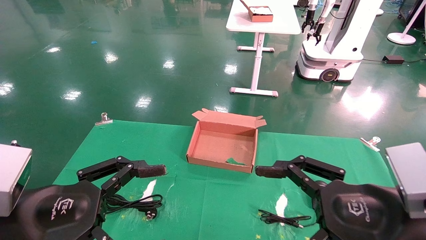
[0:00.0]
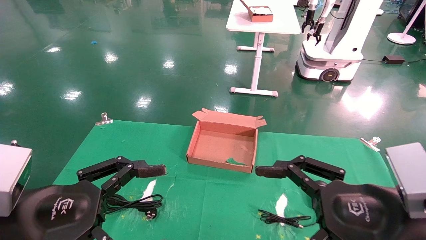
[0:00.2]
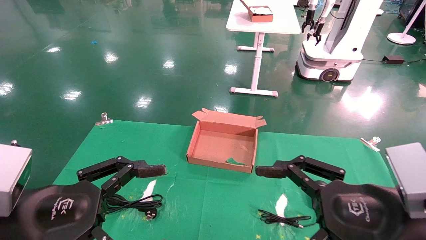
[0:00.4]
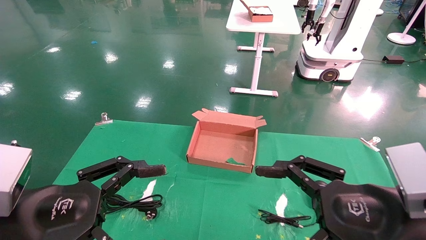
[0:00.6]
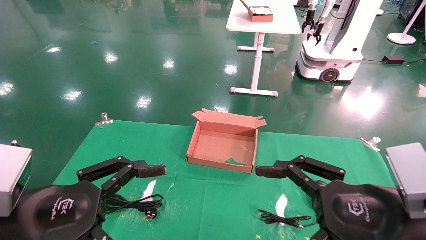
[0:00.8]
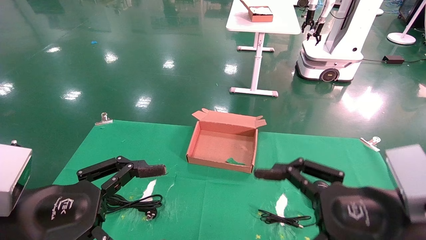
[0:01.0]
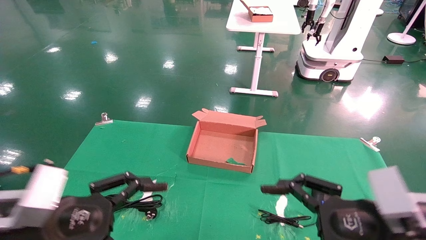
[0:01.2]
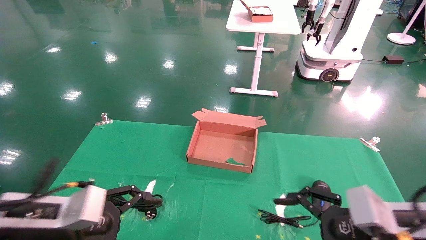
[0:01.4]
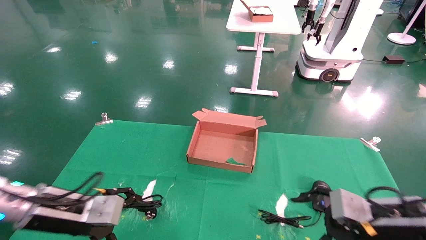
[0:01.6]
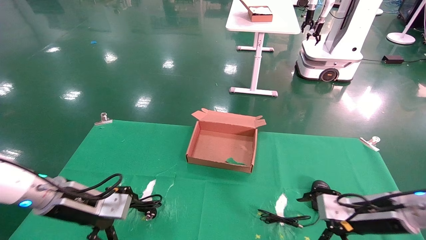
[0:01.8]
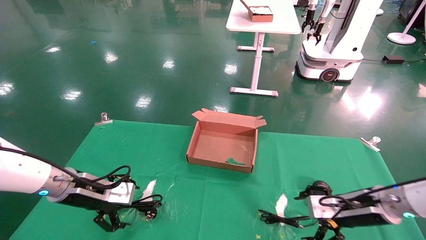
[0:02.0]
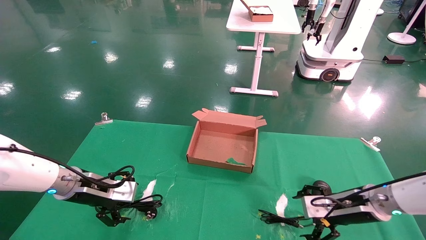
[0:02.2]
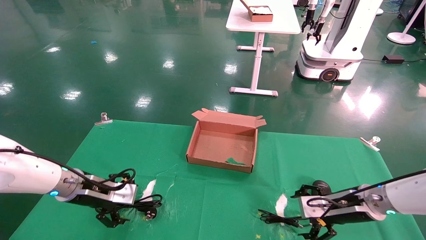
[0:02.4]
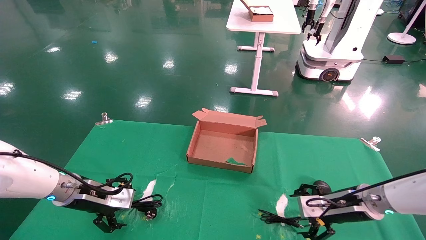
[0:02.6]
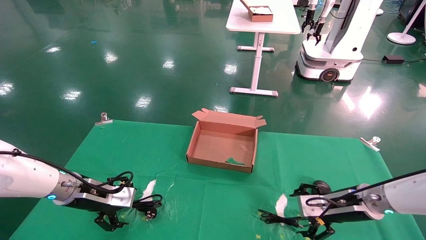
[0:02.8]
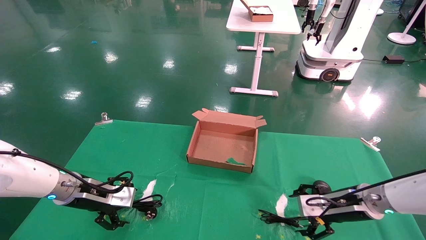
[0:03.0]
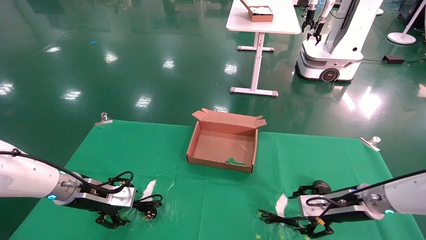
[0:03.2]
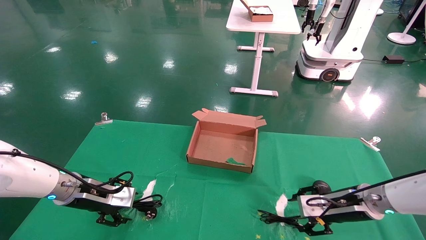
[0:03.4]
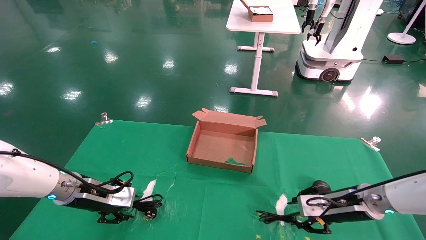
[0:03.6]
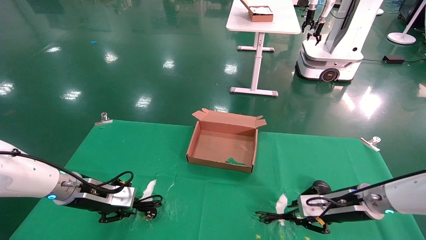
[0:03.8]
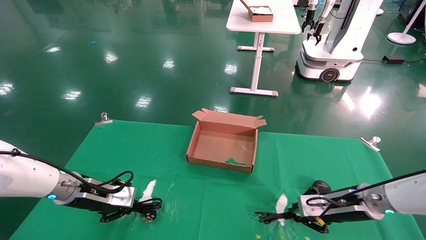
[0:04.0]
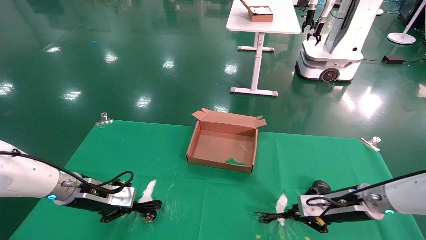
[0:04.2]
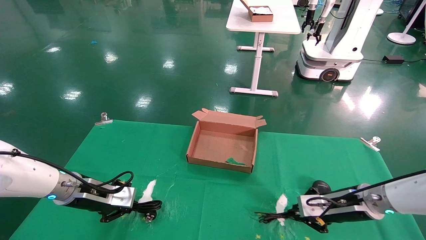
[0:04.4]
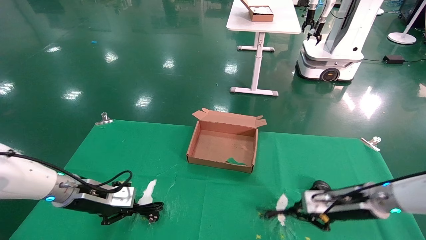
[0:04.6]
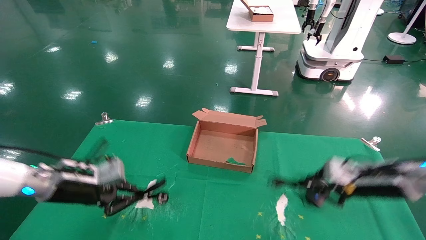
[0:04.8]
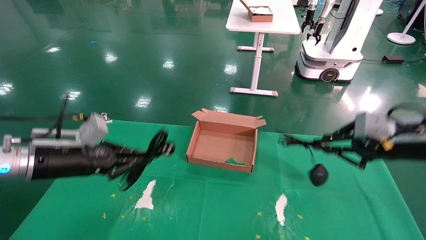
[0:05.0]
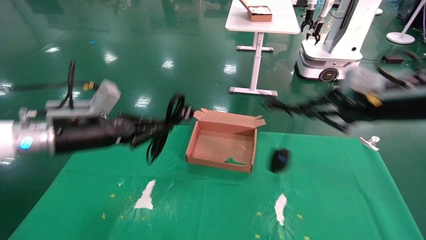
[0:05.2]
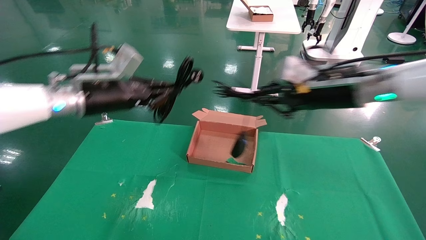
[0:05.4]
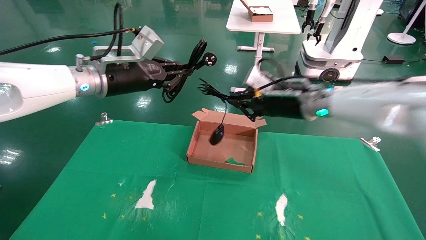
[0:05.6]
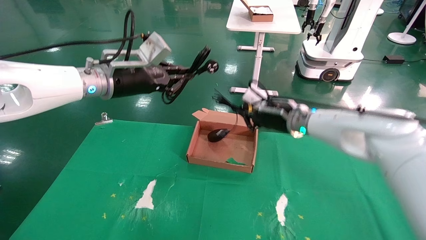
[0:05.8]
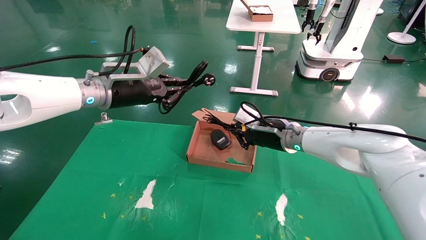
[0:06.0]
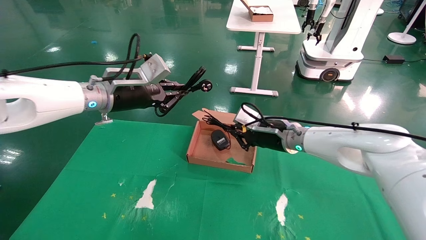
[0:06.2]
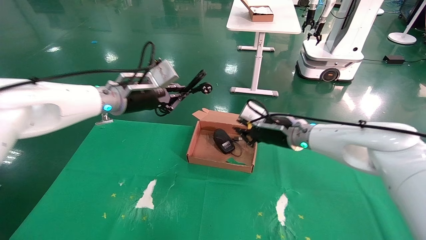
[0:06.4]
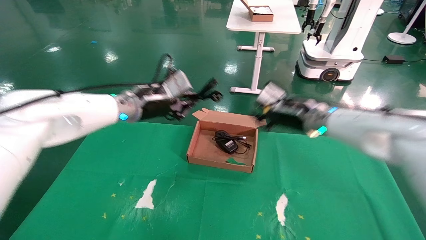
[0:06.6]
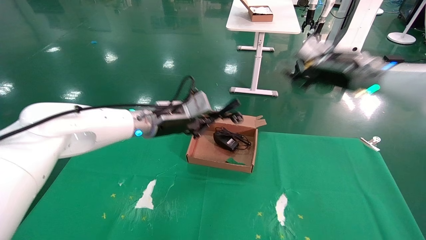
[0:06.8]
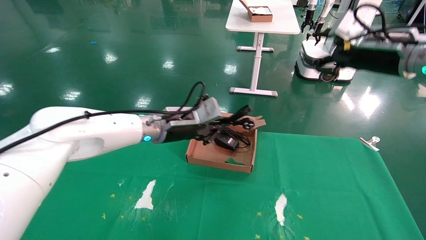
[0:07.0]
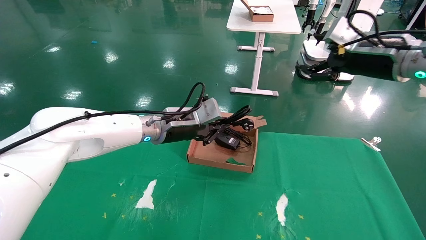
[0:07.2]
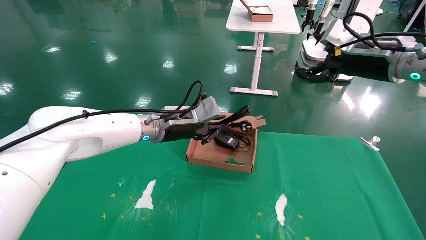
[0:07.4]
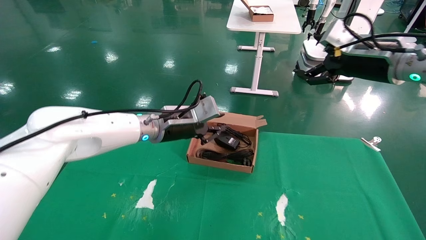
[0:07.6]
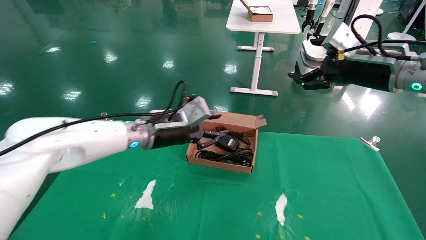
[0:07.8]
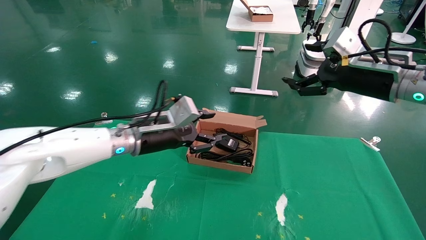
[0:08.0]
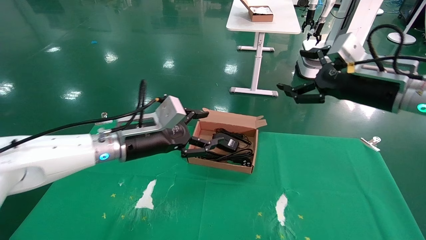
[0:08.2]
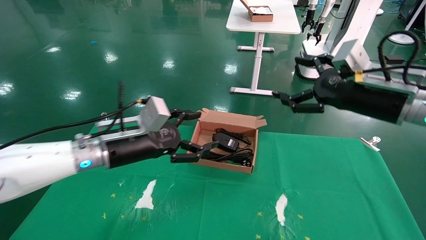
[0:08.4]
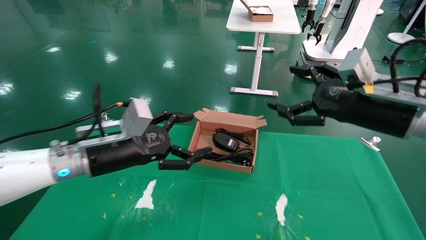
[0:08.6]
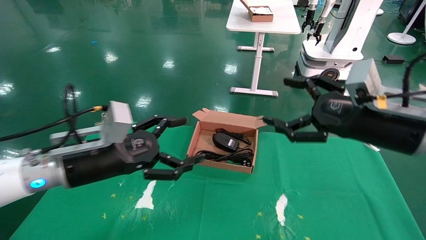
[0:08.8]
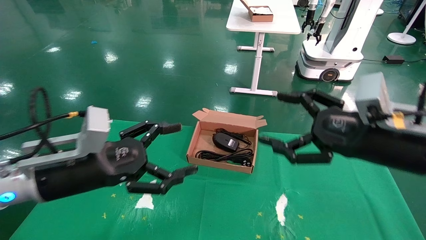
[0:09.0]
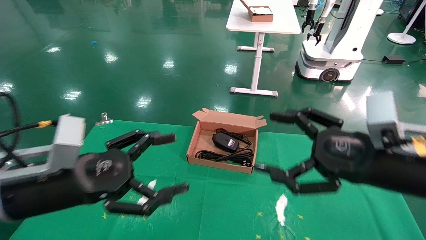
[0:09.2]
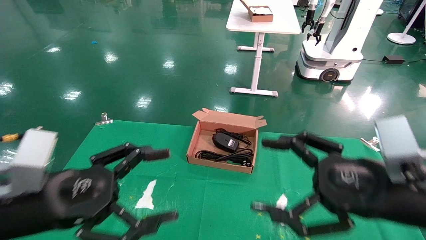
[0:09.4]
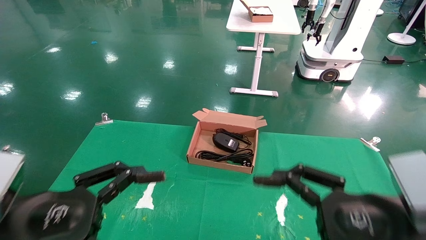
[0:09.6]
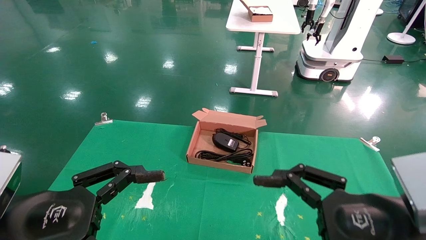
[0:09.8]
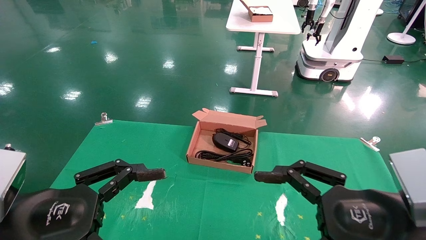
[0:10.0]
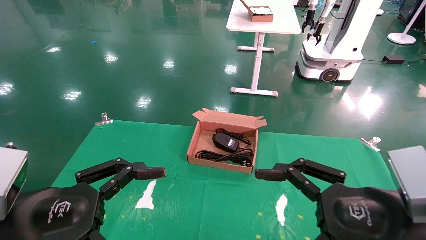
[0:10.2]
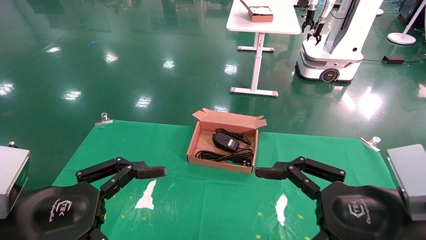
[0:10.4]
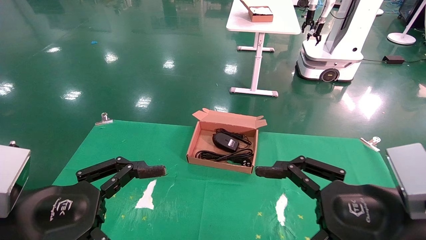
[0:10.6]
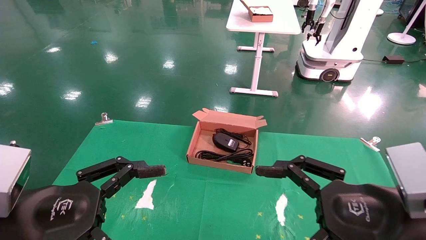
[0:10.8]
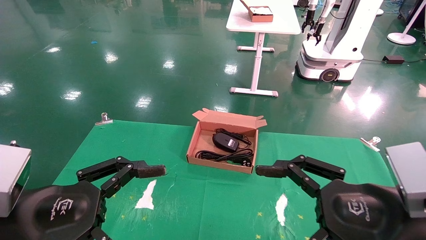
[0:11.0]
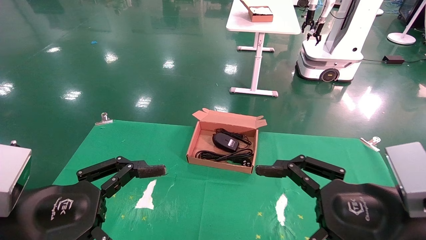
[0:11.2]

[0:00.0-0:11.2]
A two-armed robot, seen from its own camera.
Step, 0:01.4 to 0:04.2: Grab and lift both the mouse and power cord from the accessory packaging area at the same time.
Step, 0:04.4 to 0:08.0: Place the mouse and power cord into the box.
0:00.0 to 0:01.6: The left gripper travels forward and downward by roughly 15 cm, while the right gripper goes approximately 15 cm forward, downward and to the right.
0:01.6 to 0:03.2: The grippers both shift forward by roughly 10 cm.
0:03.2 to 0:04.8: The left gripper moves some 5 cm, and closes up; the right gripper goes about 10 cm upward, and closes.
0:04.8 to 0:06.4: The right gripper travels to the left and forward by about 20 cm; the left gripper moves upward, to the right and forward, about 20 cm.
0:06.4 to 0:08.0: The right gripper goes approximately 20 cm to the right, upward and backward, and opens its fingers, while the left gripper moves downward, some 5 cm, and opens up.
0:08.0 to 0:09.6: The right gripper shifts roughly 25 cm backward and downward, while the left gripper heads backward and to the left, covering about 25 cm, and opens.
0:09.6 to 0:11.2: The two grippers keep their place.

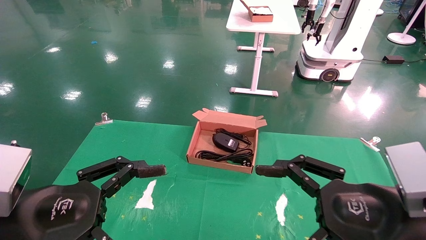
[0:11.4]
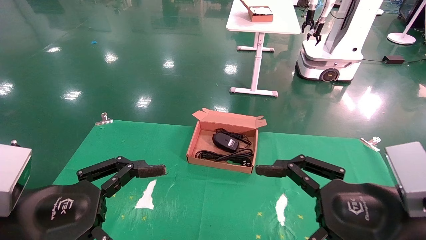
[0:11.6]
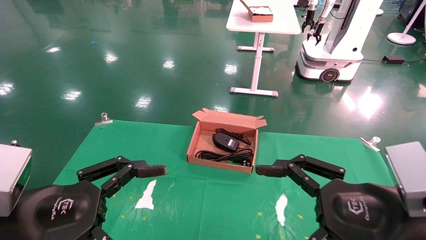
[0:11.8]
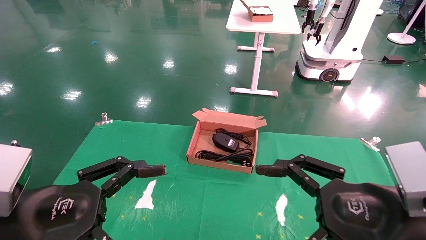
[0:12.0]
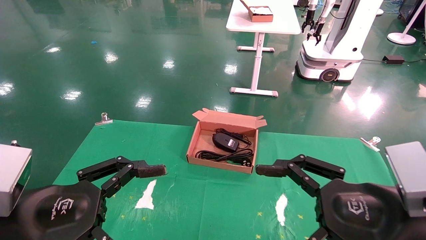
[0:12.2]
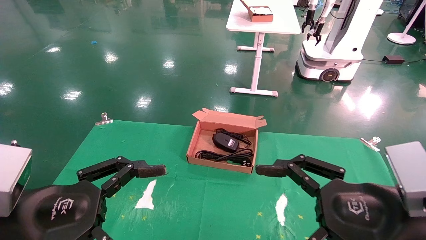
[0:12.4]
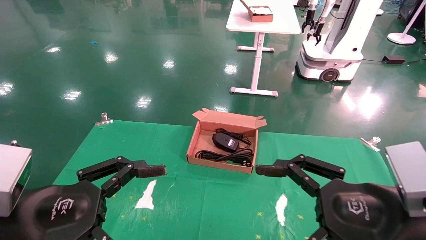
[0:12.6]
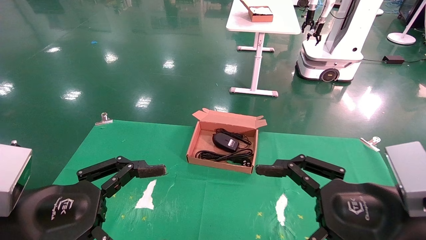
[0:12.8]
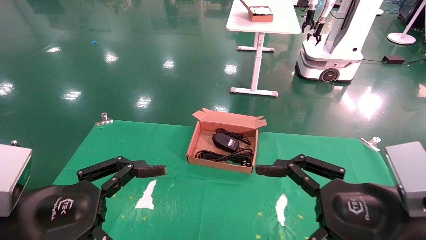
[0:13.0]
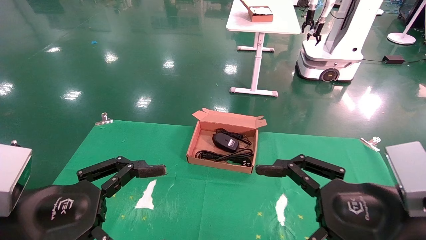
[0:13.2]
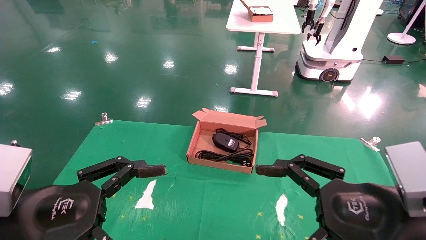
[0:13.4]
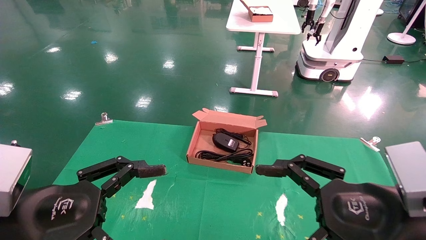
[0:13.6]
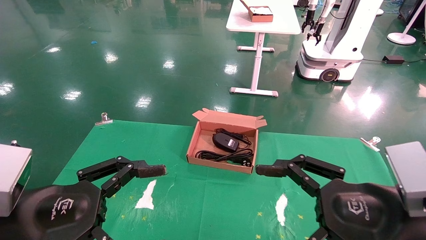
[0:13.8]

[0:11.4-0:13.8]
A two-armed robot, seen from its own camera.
0:11.4 to 0:13.8: Both grippers stay about where they are.

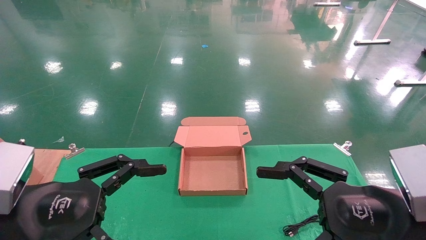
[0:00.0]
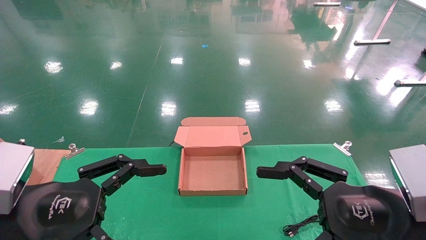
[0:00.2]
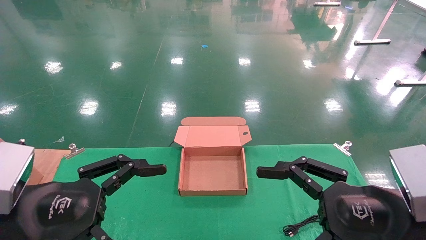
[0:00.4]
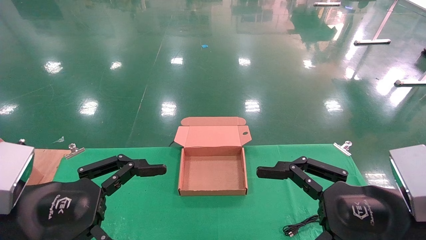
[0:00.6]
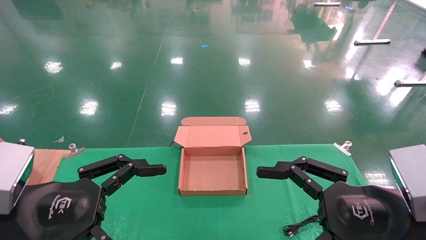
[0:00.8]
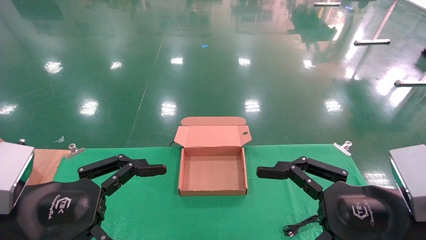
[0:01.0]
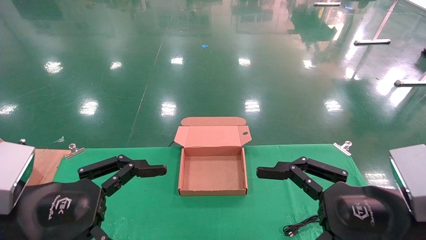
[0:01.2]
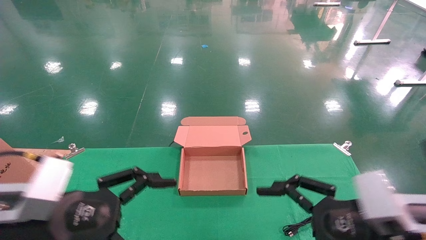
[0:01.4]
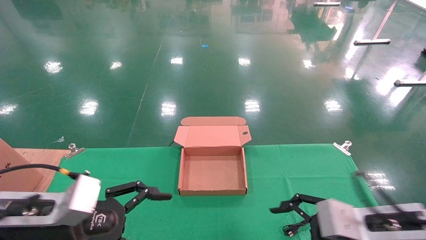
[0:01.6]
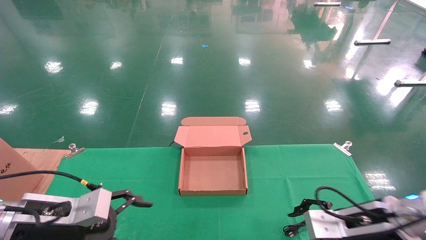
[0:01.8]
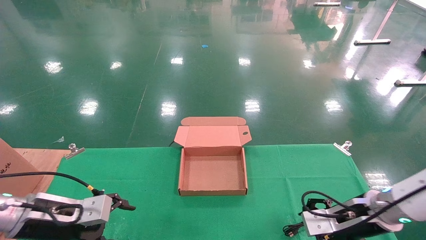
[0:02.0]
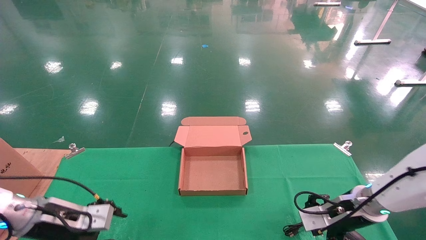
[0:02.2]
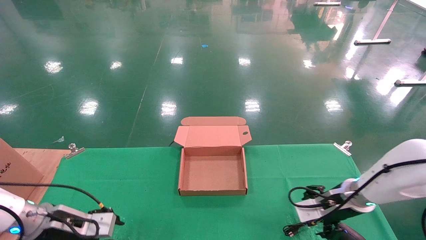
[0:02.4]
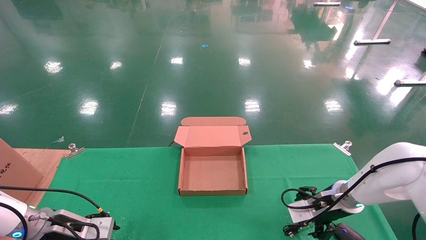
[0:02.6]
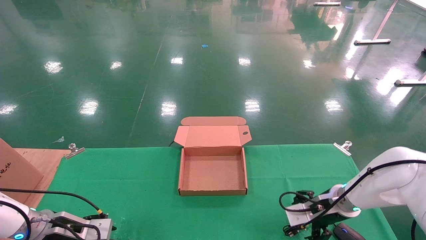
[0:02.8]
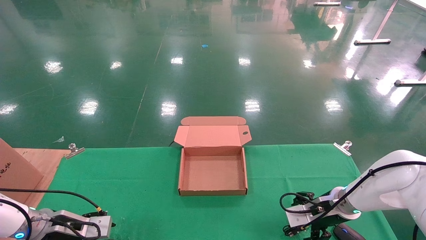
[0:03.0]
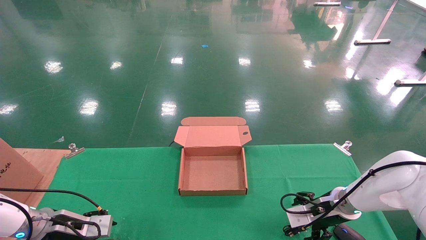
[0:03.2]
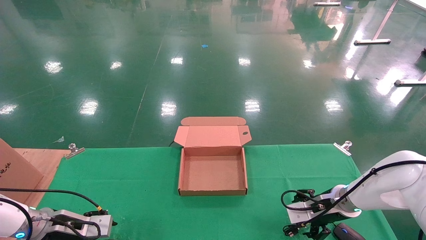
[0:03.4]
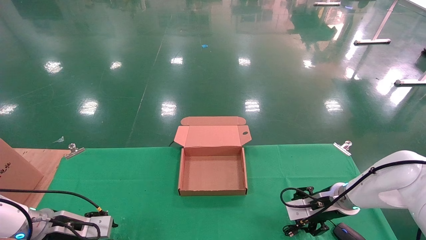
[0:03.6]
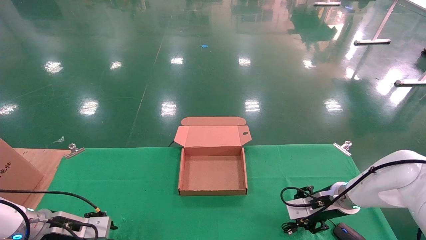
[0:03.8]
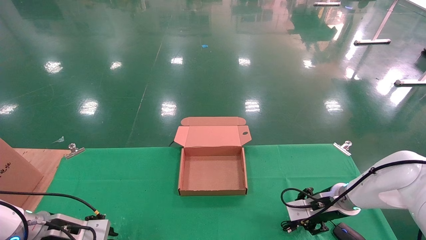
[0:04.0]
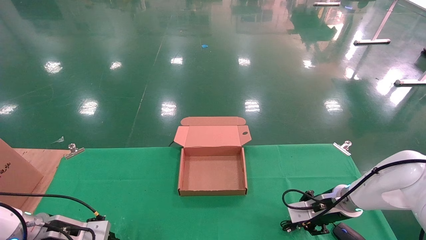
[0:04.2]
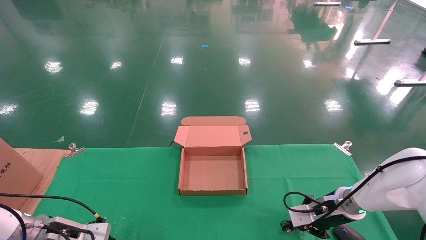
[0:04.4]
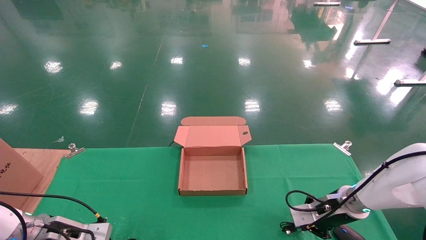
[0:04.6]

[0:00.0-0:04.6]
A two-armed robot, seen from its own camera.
0:00.0 to 0:01.6: Both grippers travel together forward and downward, about 10 cm.
0:01.6 to 0:03.0: The right gripper travels forward and downward by roughly 20 cm. Meanwhile the left gripper moves forward, downward and to the left, roughly 20 cm.
0:03.0 to 0:04.6: The right gripper closes; the left gripper closes its fingers.
